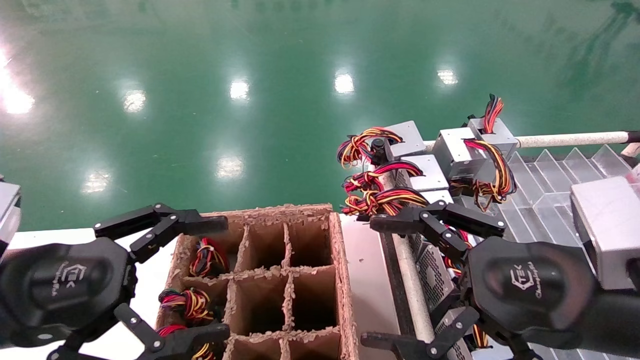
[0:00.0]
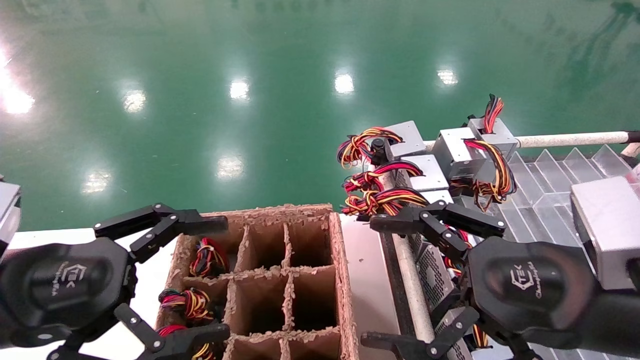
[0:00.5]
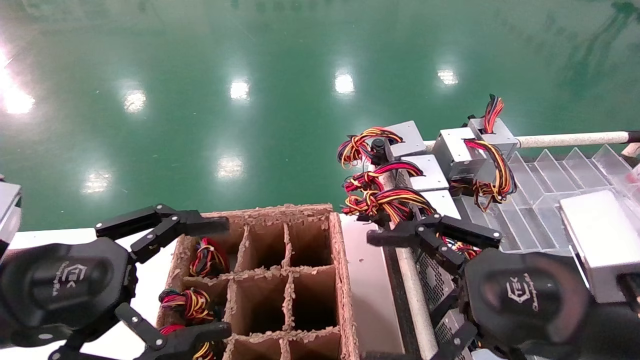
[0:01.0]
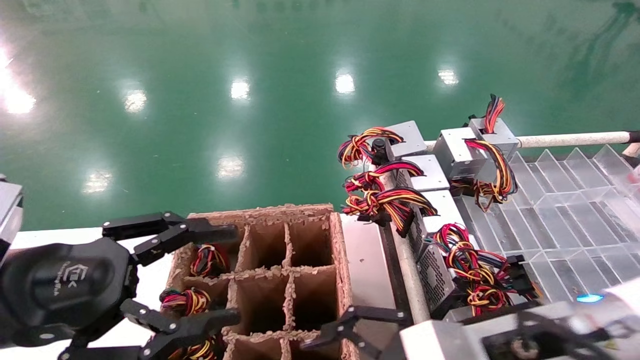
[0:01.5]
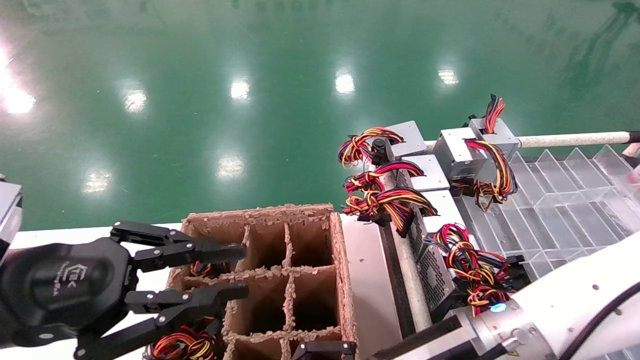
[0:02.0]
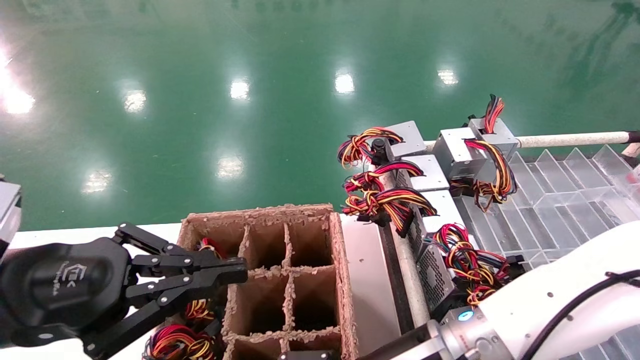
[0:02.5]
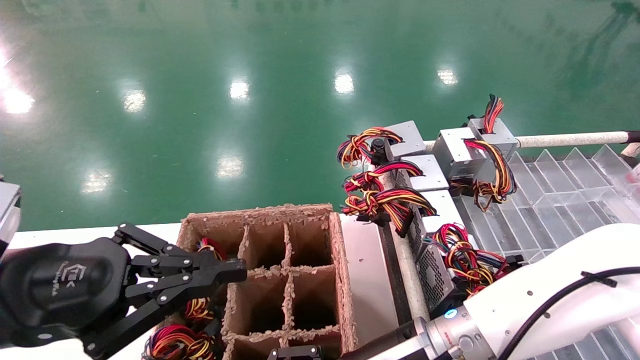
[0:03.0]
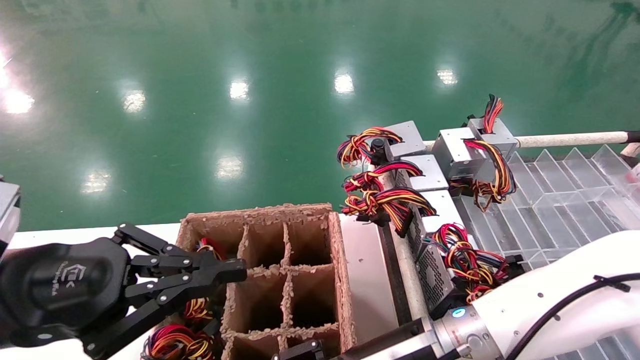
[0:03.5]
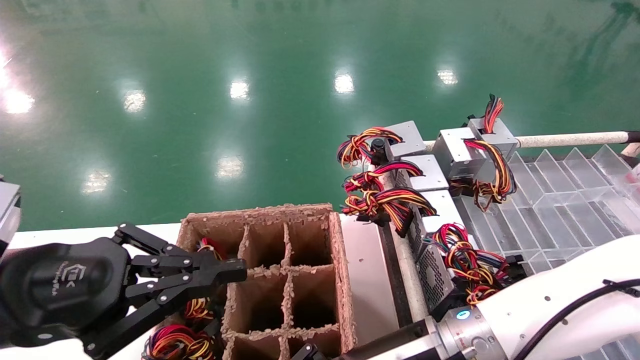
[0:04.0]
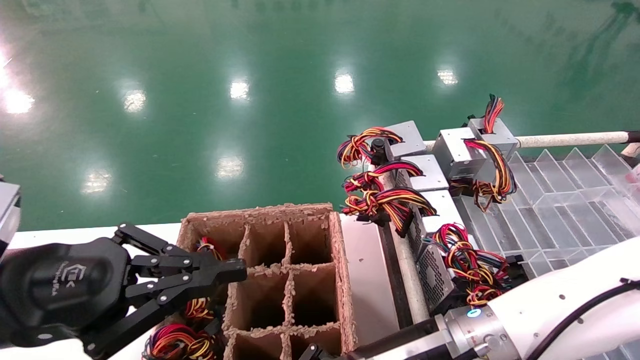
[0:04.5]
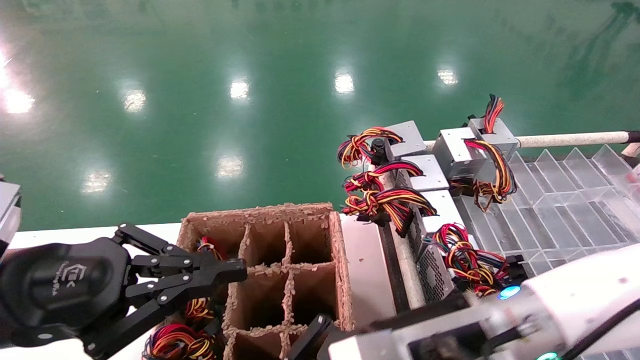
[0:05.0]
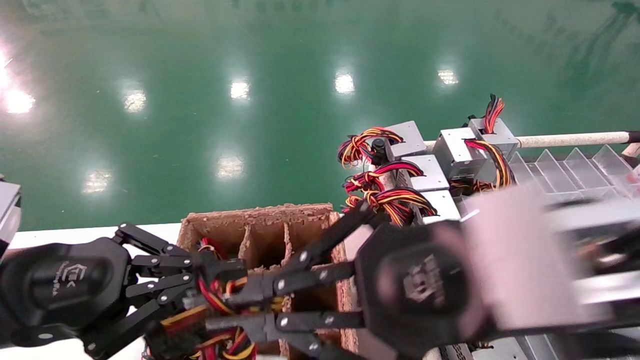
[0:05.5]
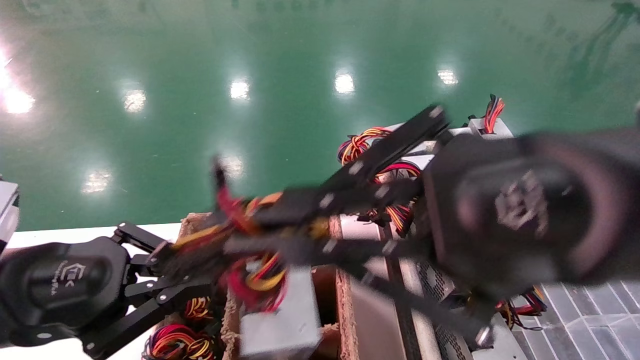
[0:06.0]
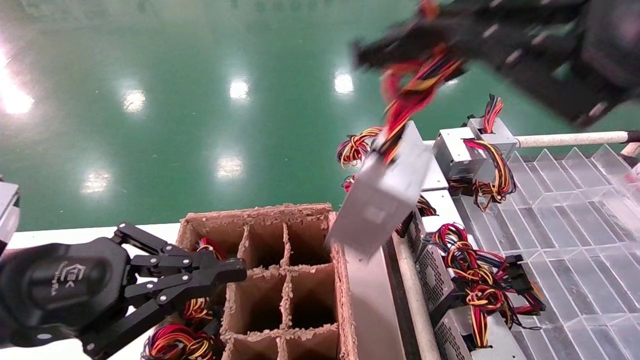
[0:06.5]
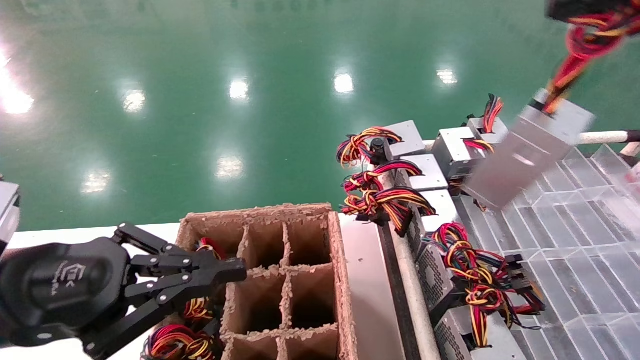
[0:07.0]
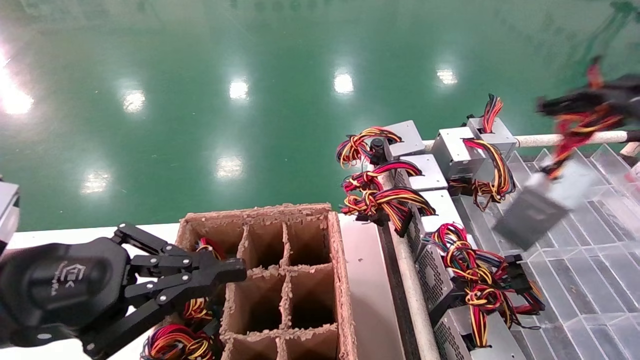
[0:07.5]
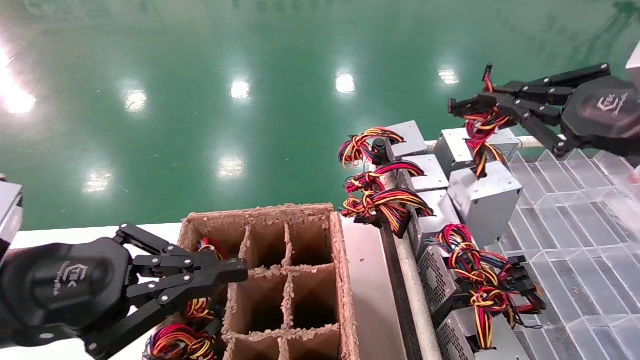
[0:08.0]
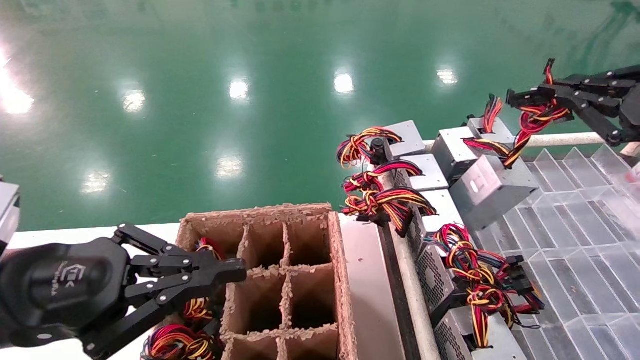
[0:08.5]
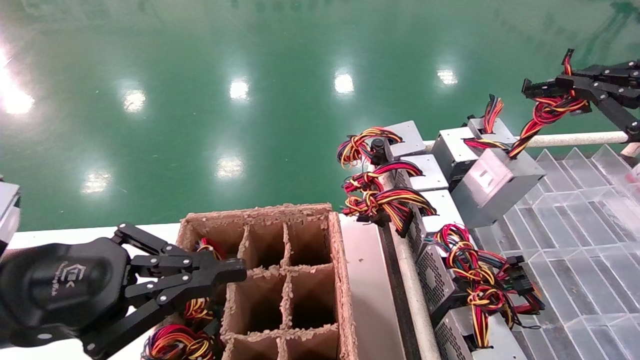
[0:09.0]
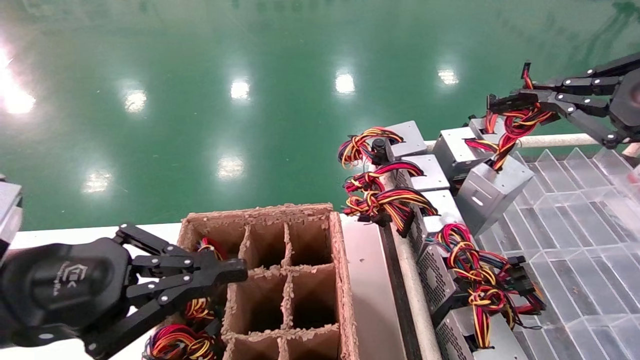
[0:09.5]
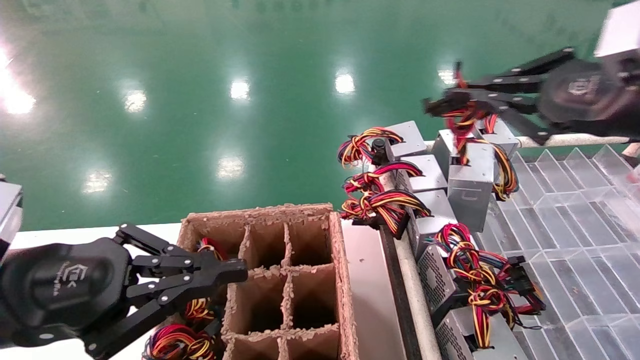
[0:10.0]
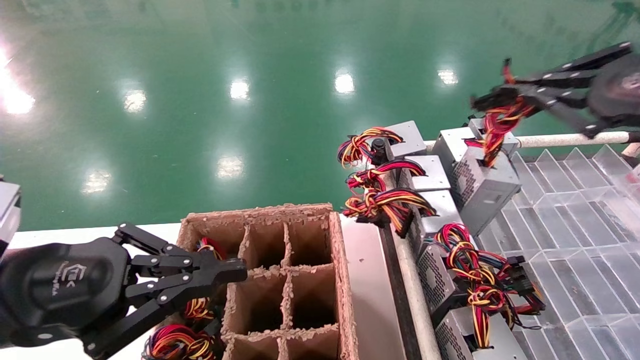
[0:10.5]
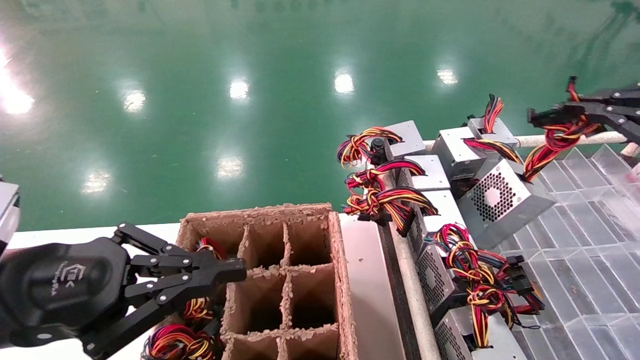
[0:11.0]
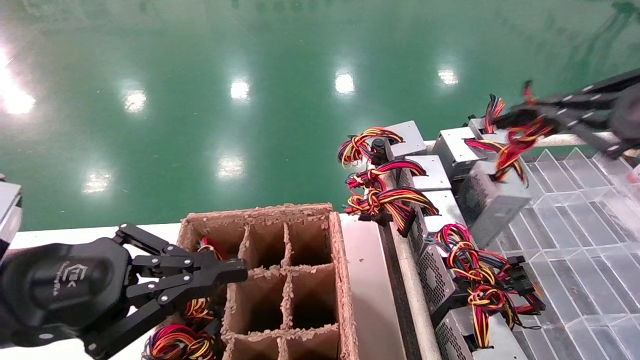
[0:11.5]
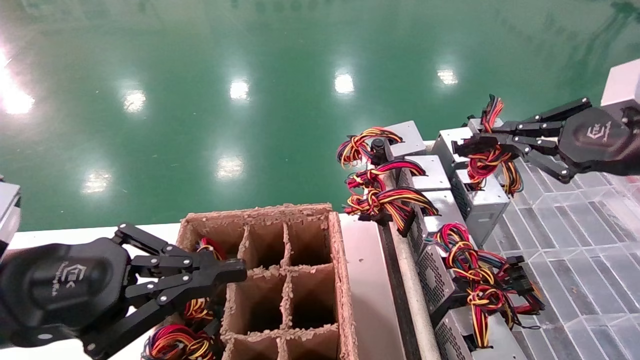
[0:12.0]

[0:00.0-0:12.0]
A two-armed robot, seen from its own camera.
Step, 0:01.5 to 0:04.5: Grab the main unit power supply from the containment box.
0:00.0 to 0:02.0: The right gripper travels to the left and downward by roughly 15 cm. The left gripper closes up.
0:02.0 to 0:04.0: The right gripper closes its fingers. The left gripper closes.
0:04.0 to 0:06.0: The right gripper moves upward and backward, about 25 cm.
0:06.0 to 0:08.0: The right gripper is displaced to the right and forward by some 20 cm.
0:08.0 to 0:10.0: There are only small adjustments of the grippers.

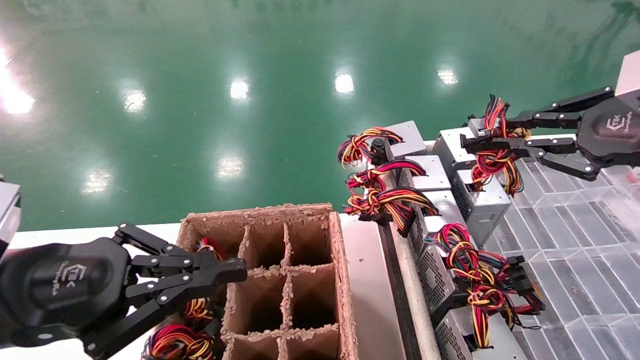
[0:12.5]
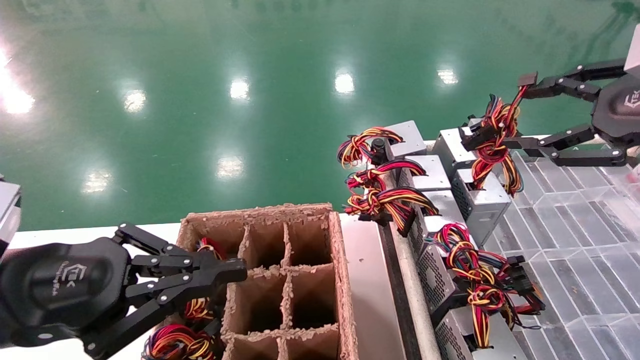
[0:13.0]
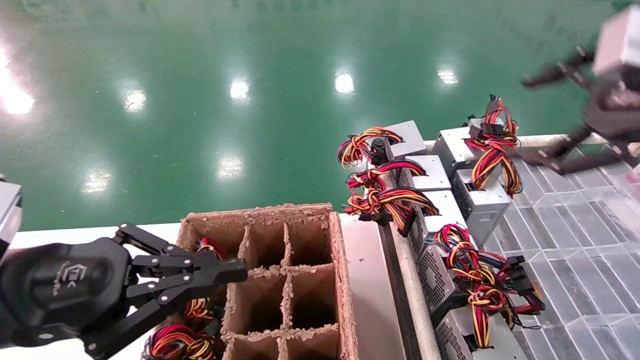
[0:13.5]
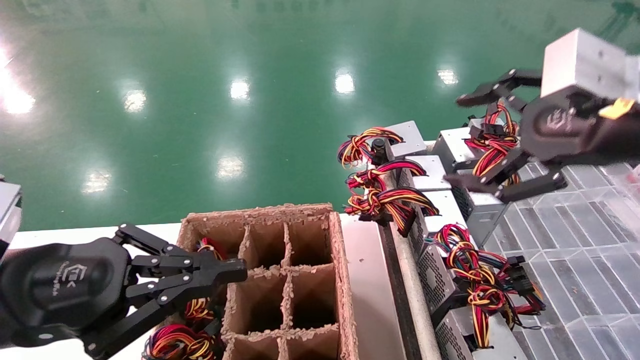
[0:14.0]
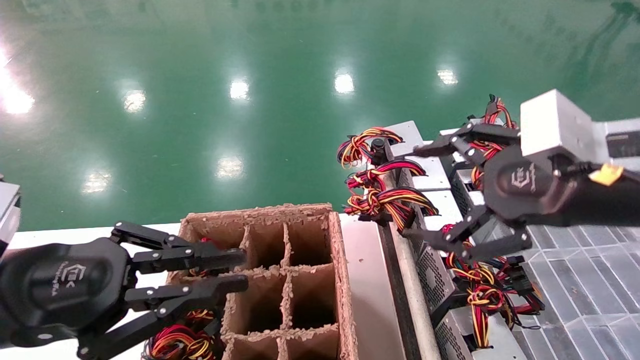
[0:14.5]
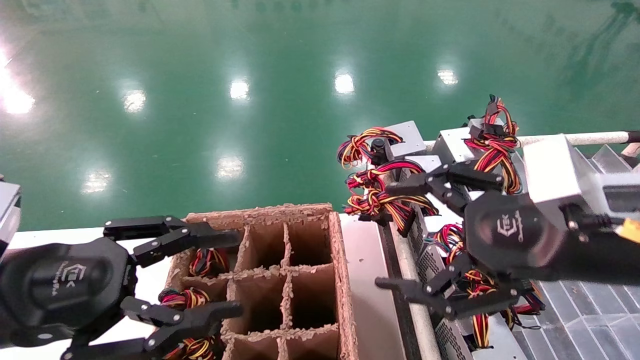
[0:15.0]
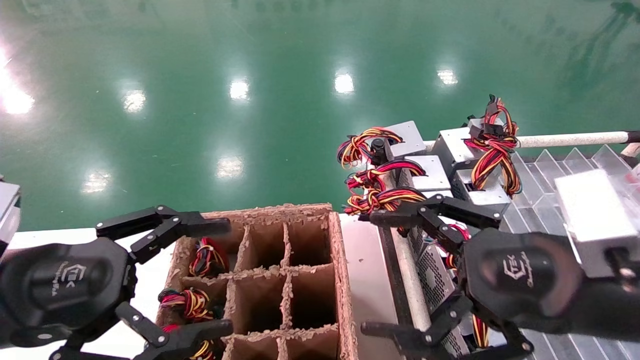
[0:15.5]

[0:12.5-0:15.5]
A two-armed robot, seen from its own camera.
0:12.5 to 0:14.0: The right gripper travels to the left by roughly 10 cm, and opens its fingers.
0:14.0 to 0:15.5: The right gripper heads downward and to the left, covering some 15 cm, while the left gripper opens its fingers.
